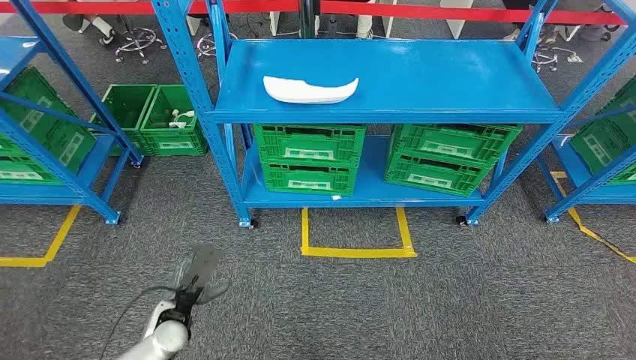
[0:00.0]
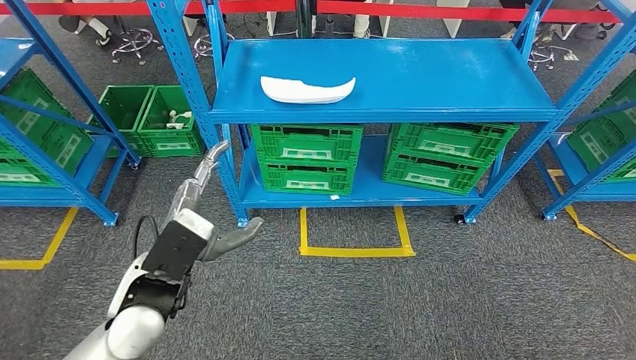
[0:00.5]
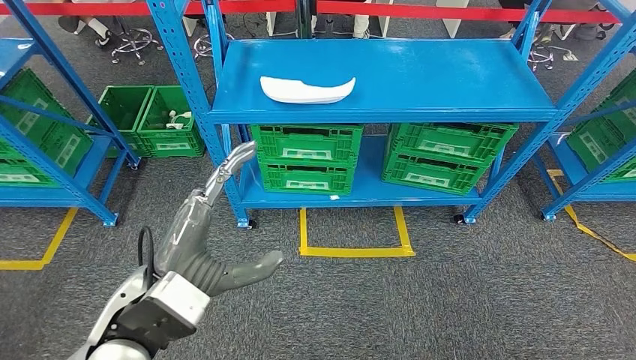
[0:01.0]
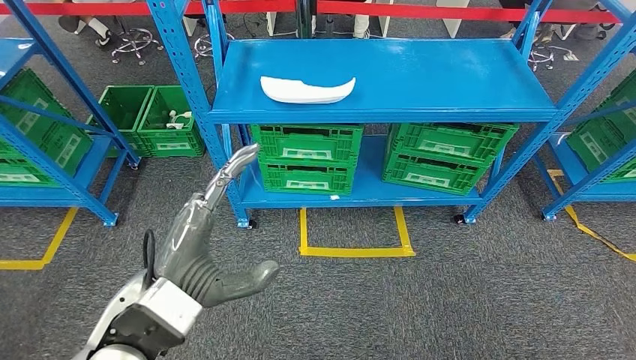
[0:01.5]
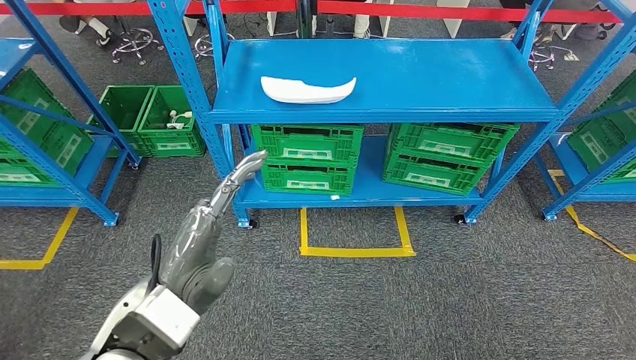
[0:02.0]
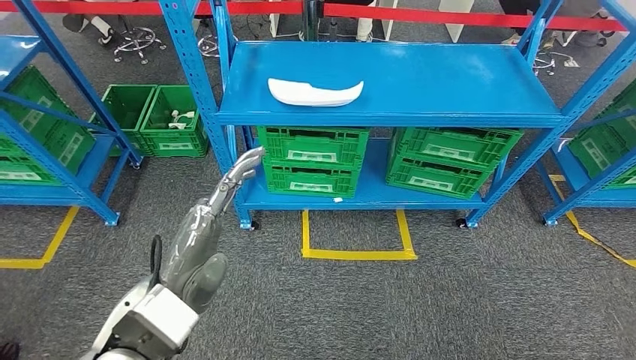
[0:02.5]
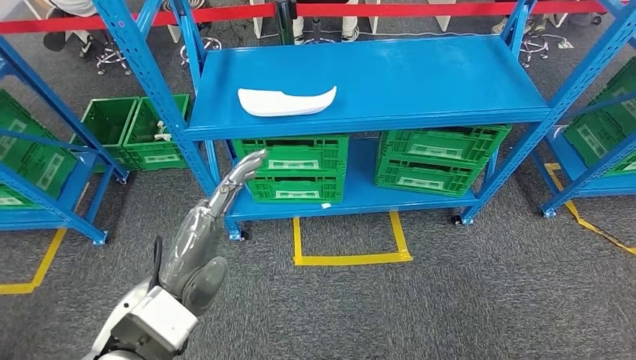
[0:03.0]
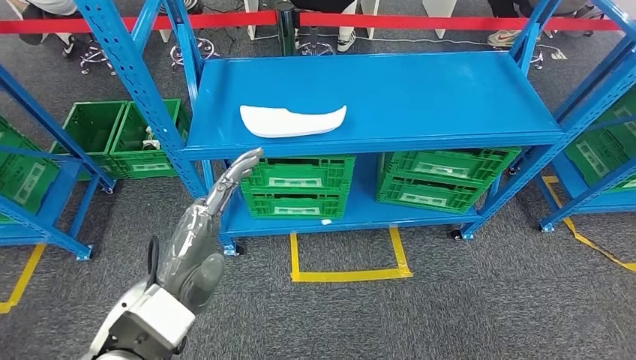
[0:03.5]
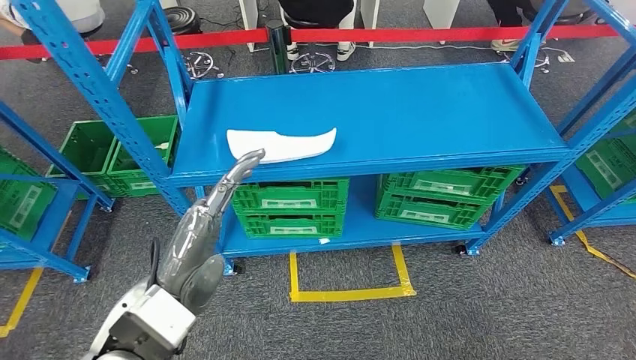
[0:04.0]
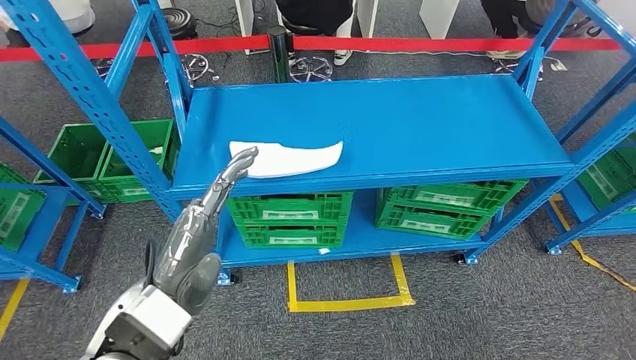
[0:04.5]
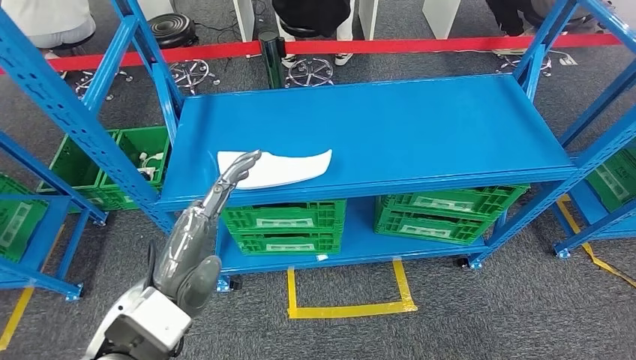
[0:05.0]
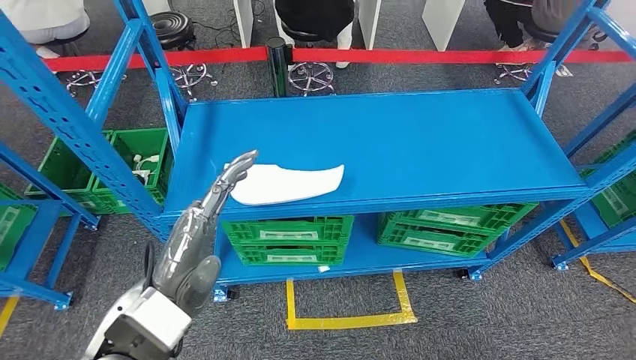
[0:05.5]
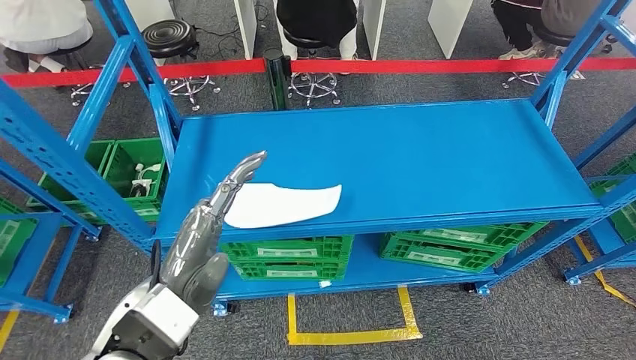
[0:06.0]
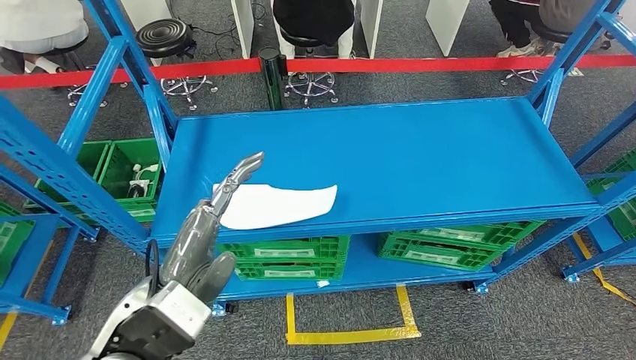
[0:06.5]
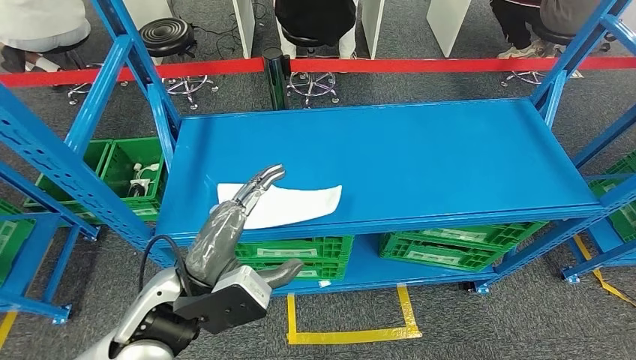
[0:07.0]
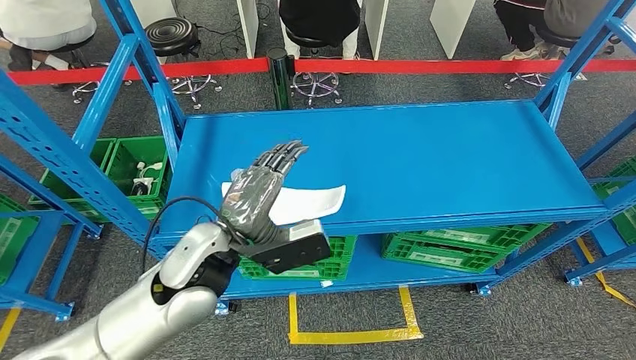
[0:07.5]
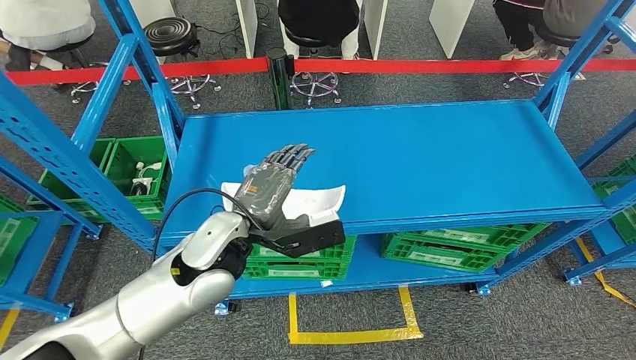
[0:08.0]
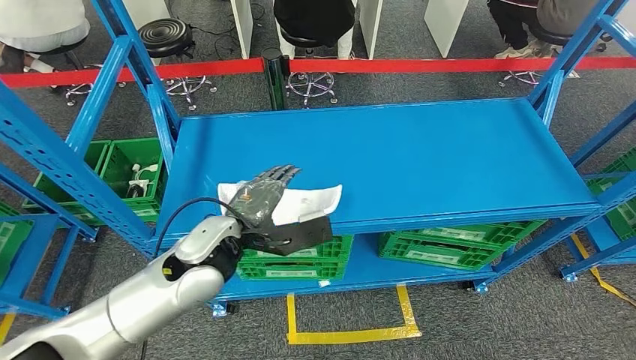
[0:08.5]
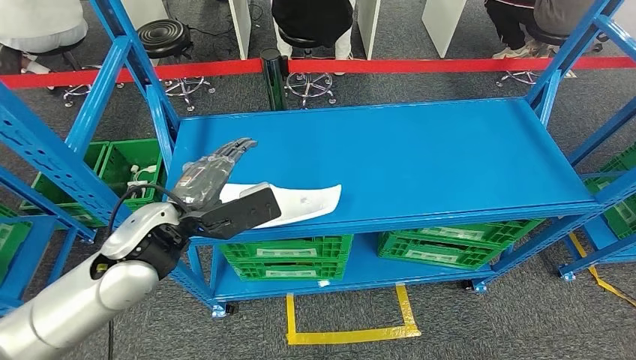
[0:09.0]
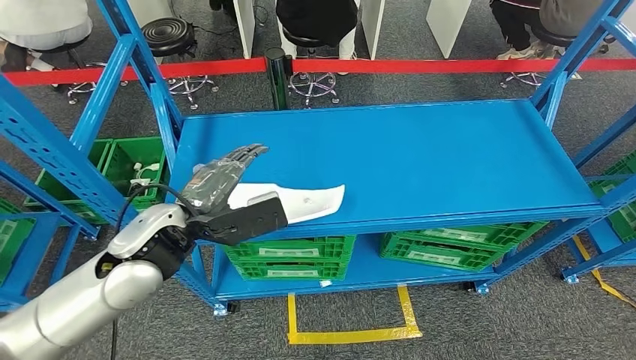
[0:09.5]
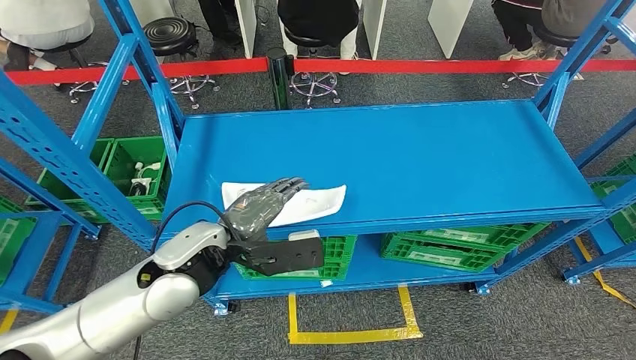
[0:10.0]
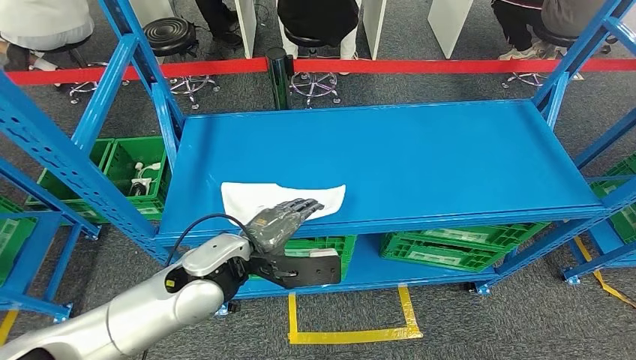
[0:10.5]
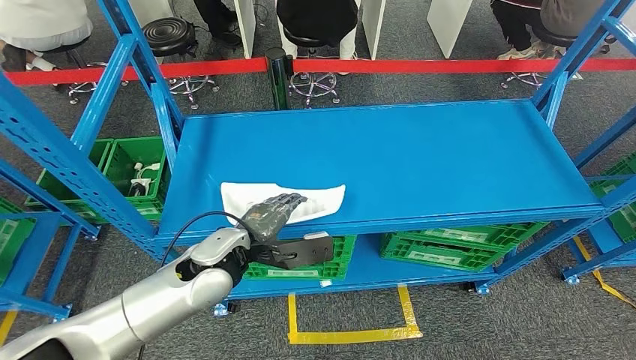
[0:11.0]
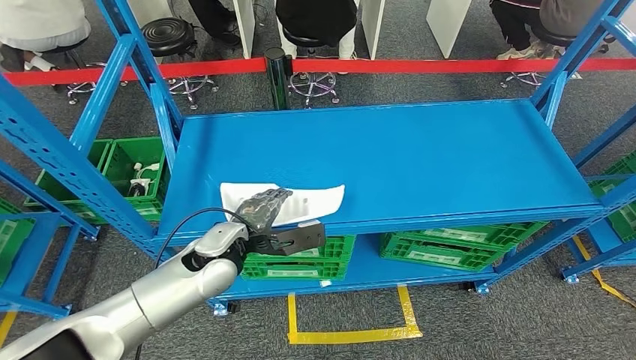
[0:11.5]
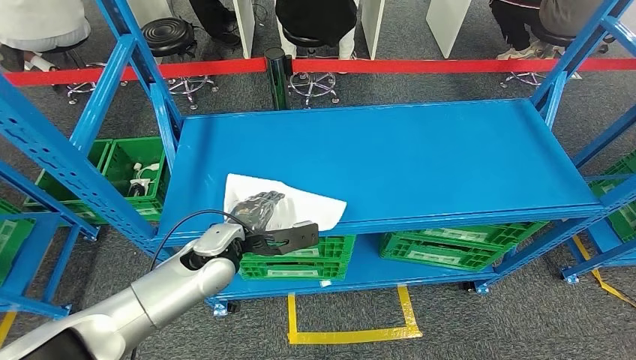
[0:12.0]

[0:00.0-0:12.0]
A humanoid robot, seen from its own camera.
0:06.0 to 0:08.0: The left hand heads forward, covering some 10 cm.
0:10.0 to 0:12.0: The left hand shifts roughly 10 cm downward and forward.

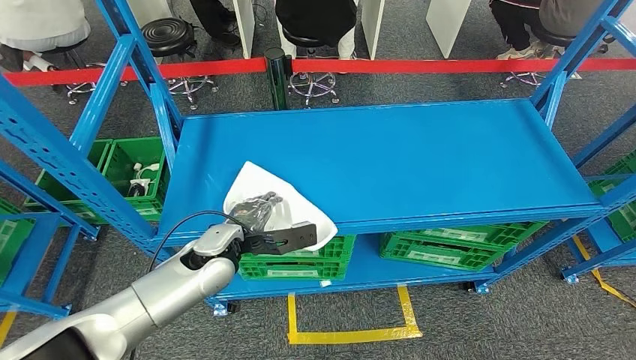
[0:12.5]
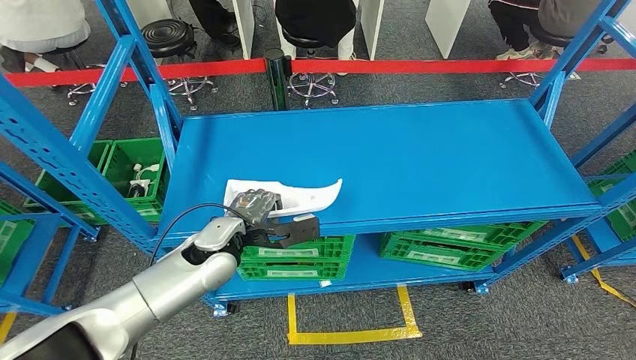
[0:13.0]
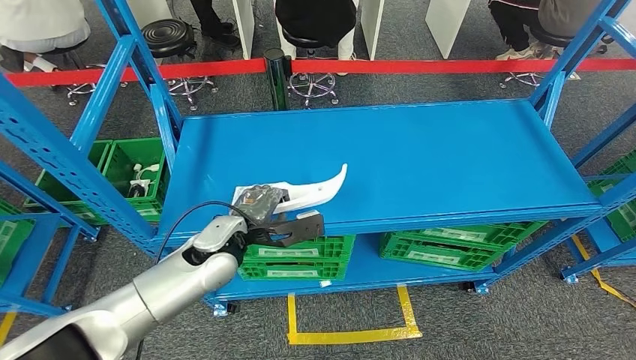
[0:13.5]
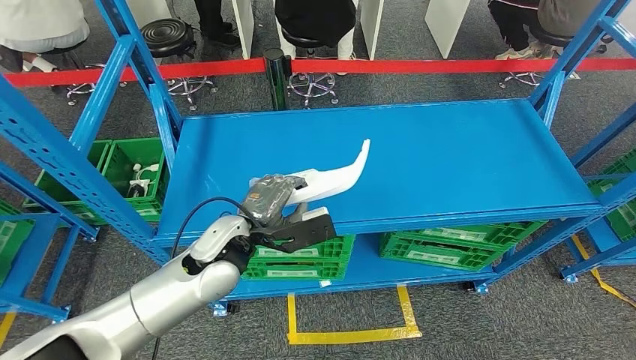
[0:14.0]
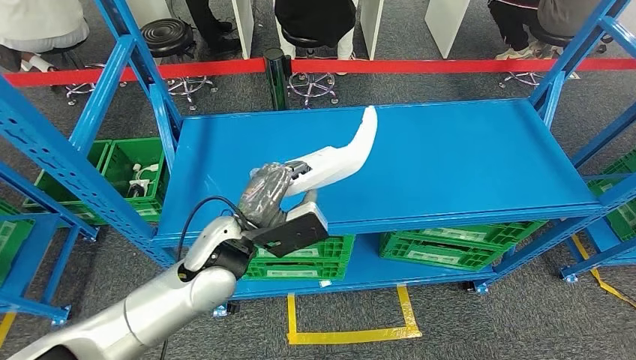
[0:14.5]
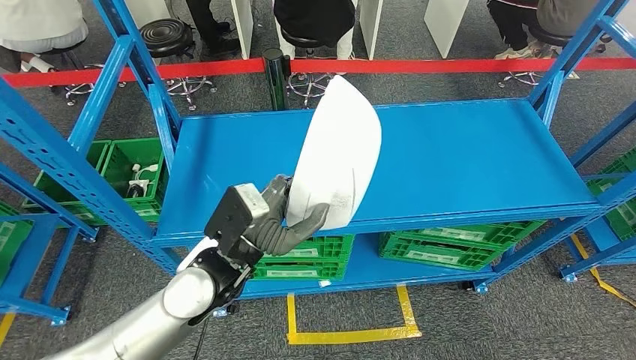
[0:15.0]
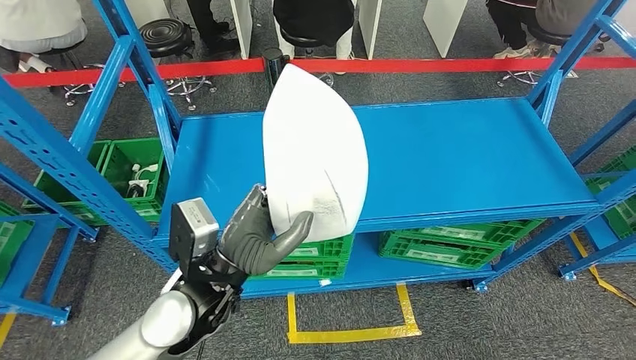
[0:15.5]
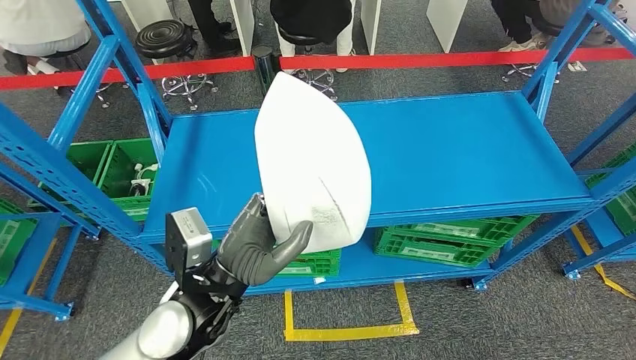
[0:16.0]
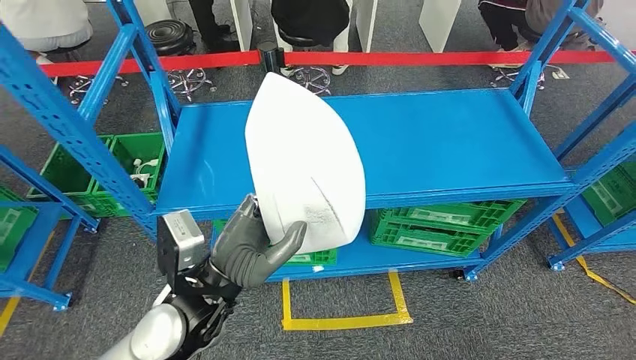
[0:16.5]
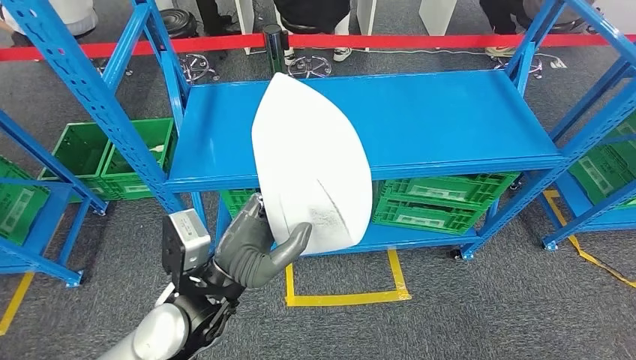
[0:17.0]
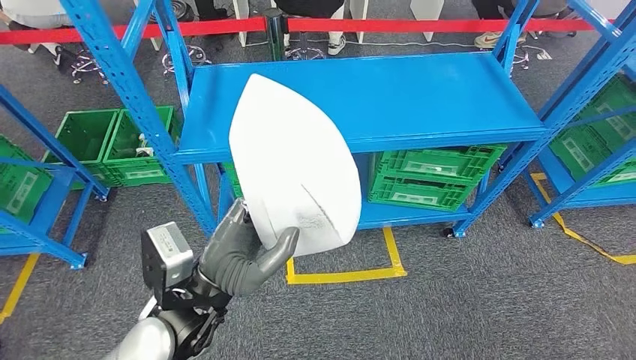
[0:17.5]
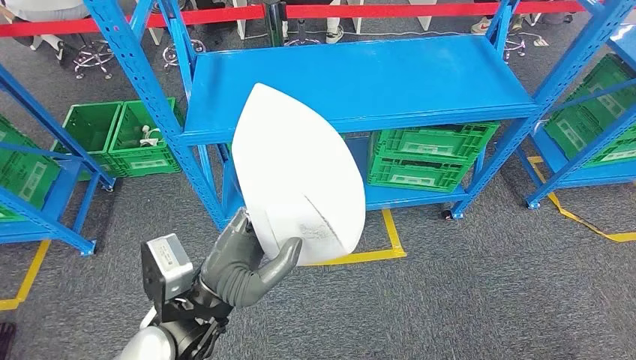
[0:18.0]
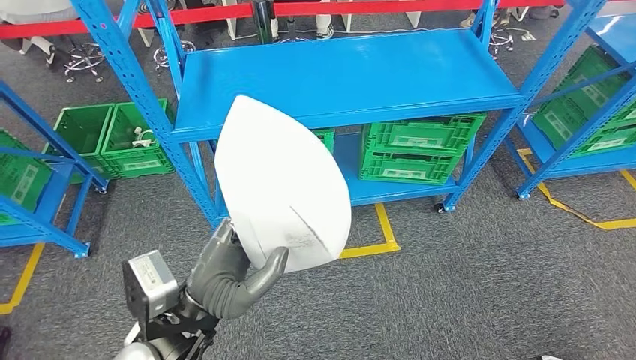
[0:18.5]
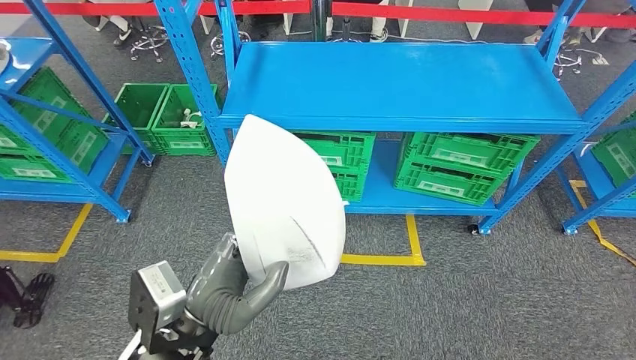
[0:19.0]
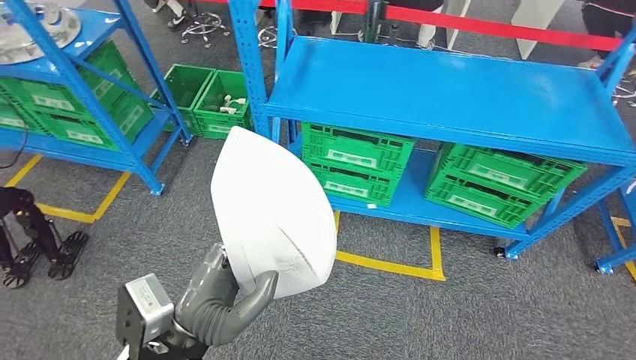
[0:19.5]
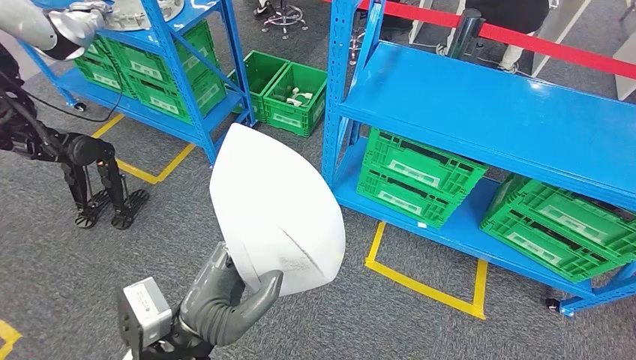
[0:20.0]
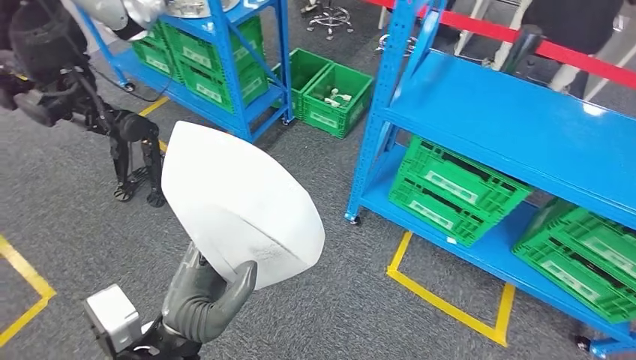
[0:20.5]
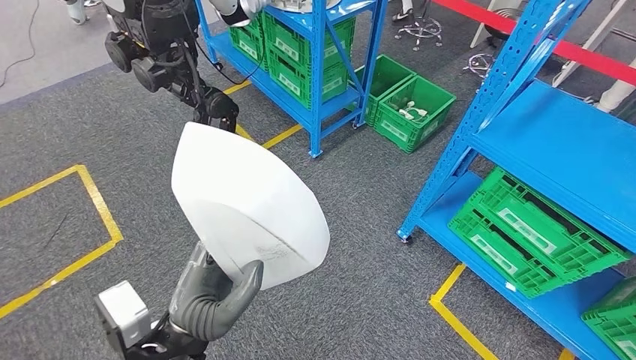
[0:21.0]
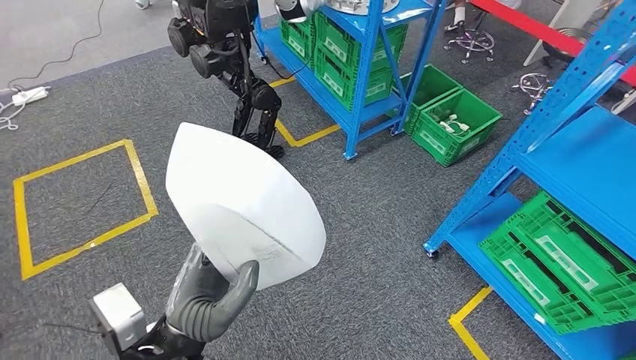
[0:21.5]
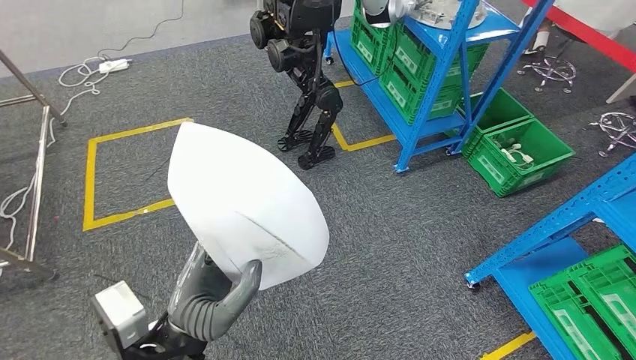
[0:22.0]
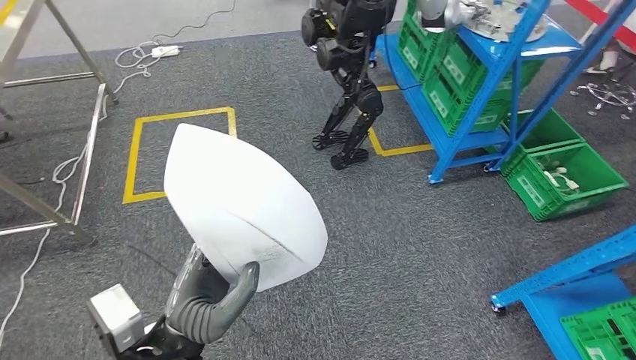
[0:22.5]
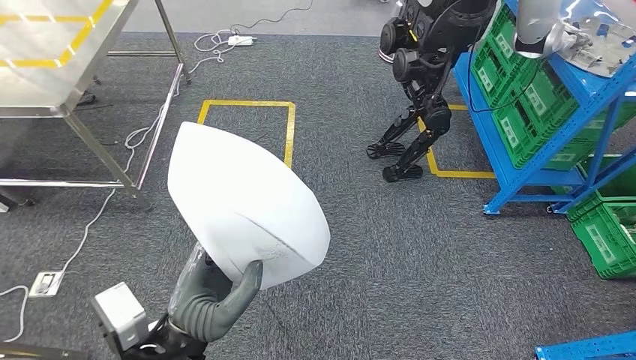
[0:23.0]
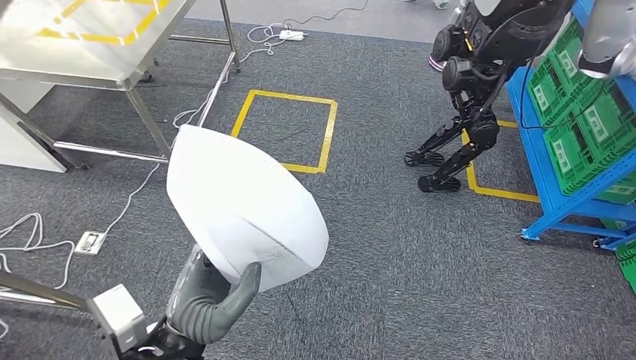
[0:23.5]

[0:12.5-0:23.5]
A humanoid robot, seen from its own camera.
Step, 0:12.5 to 0:17.5: Take small components from the rack.
0:12.5 to 0:14.5: The left hand goes roughly 5 cm upward.
